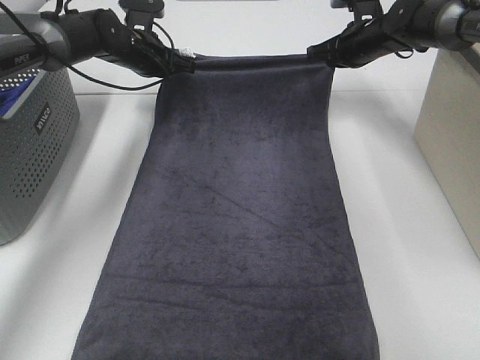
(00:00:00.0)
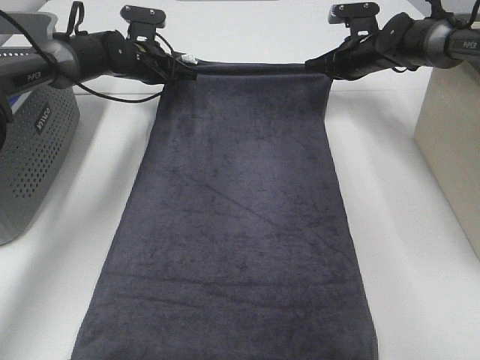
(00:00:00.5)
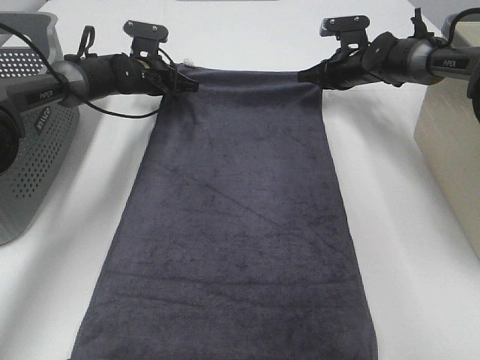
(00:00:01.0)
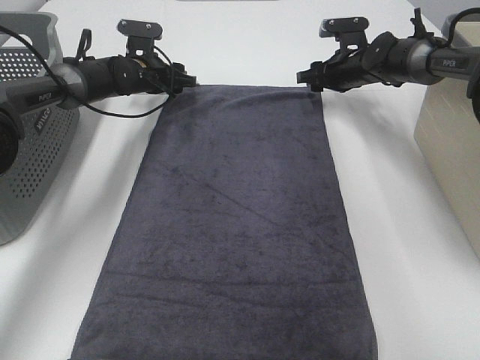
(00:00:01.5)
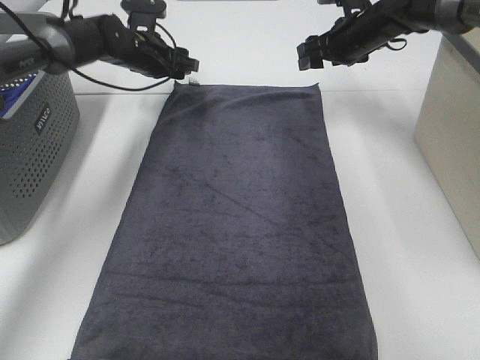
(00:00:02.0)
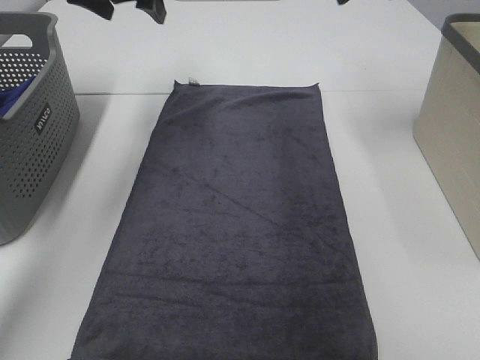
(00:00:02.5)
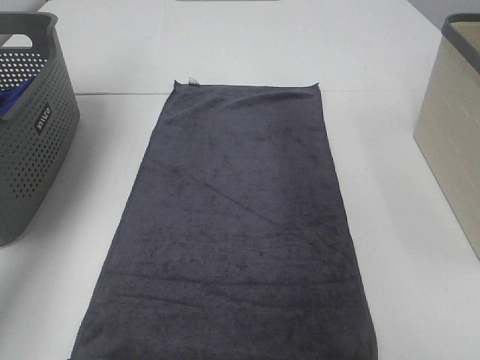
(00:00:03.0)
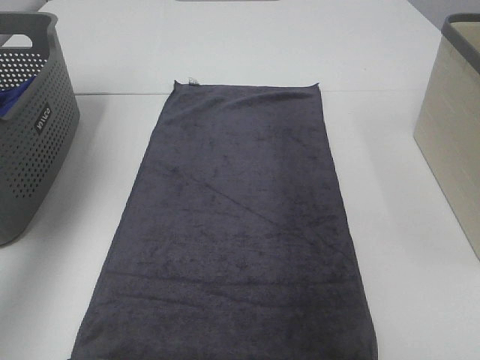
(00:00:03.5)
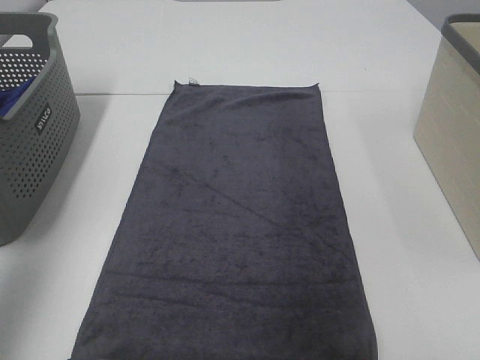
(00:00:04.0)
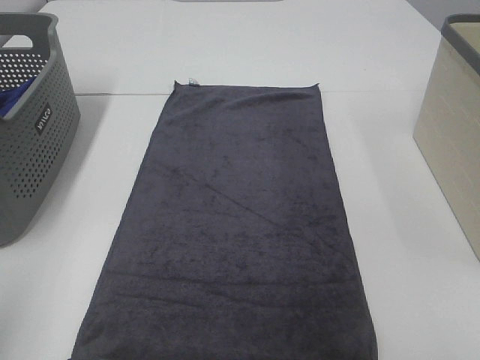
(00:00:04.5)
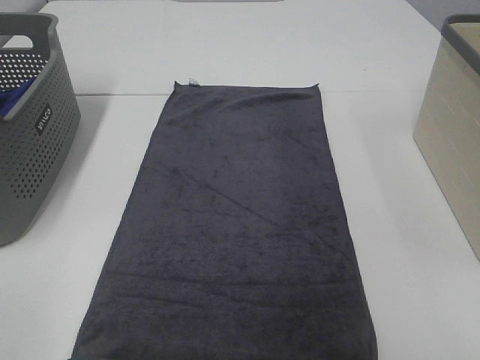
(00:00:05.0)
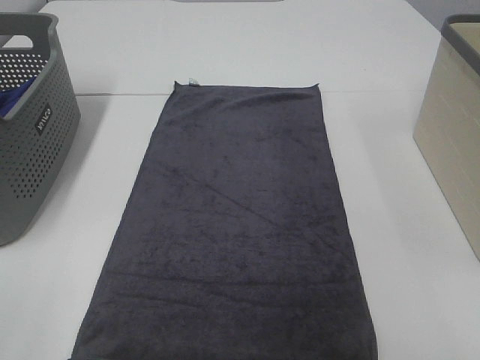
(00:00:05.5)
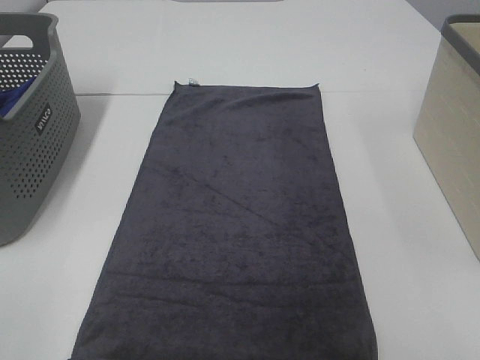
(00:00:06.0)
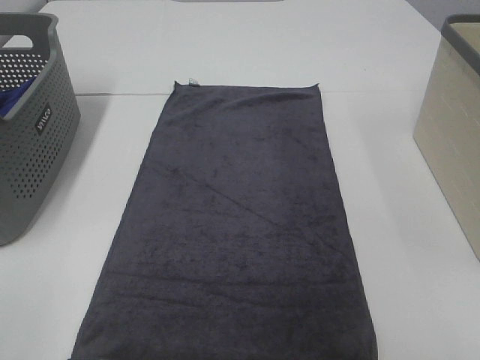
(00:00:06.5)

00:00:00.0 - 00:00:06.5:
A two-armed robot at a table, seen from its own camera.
Task of the whole recording: Remove the towel and place it.
00:00:00.0 - 00:00:02.0: The left gripper opens its fingers. The right gripper travels downward and back again, some 5 cm each way, and opens.
00:00:02.0 - 00:00:04.5: Both grippers travel together backward, roughly 50 cm.

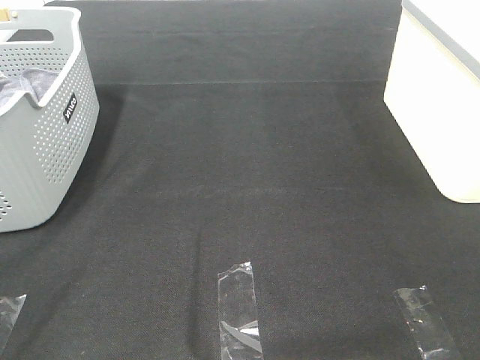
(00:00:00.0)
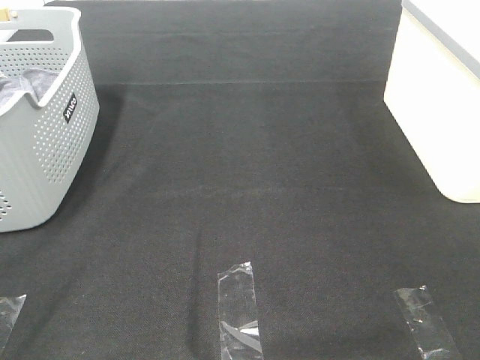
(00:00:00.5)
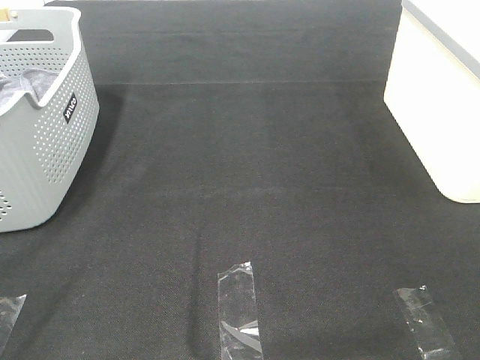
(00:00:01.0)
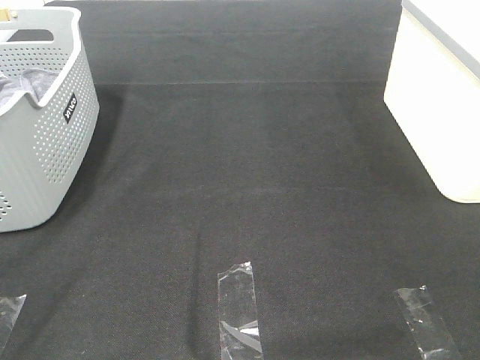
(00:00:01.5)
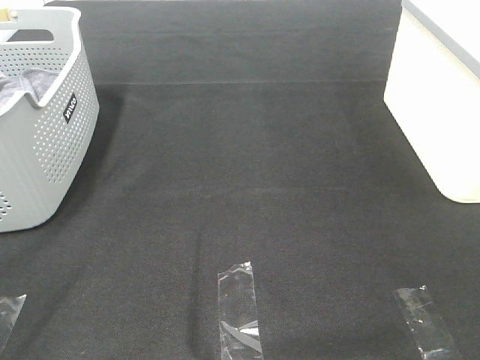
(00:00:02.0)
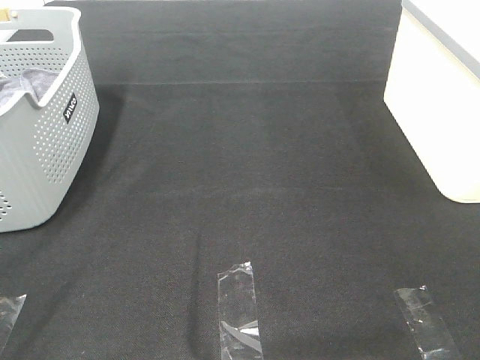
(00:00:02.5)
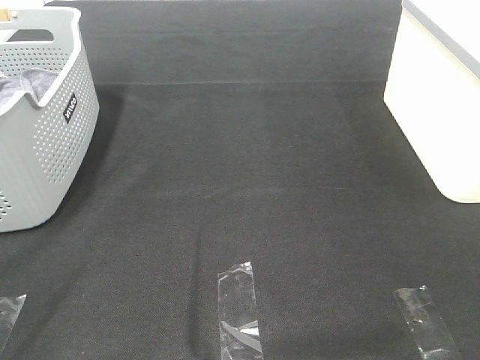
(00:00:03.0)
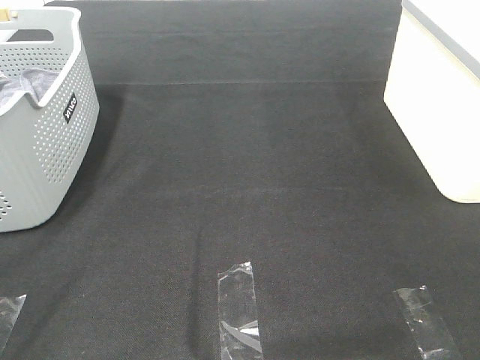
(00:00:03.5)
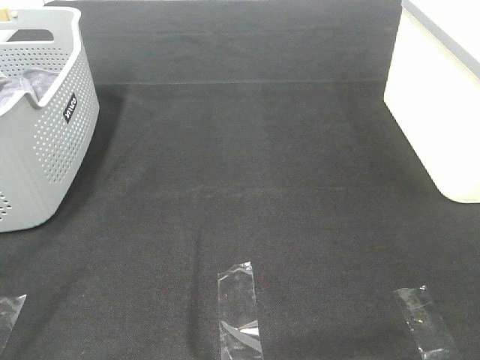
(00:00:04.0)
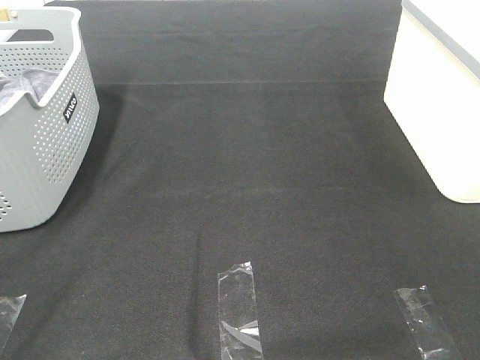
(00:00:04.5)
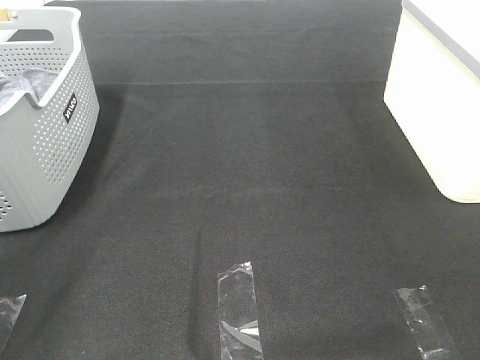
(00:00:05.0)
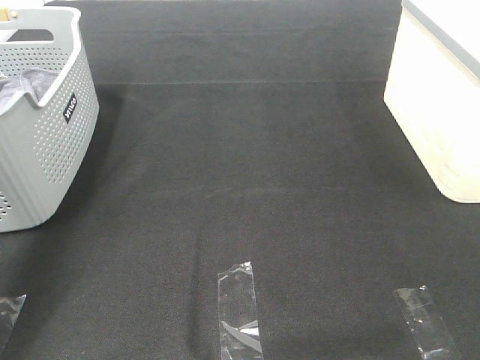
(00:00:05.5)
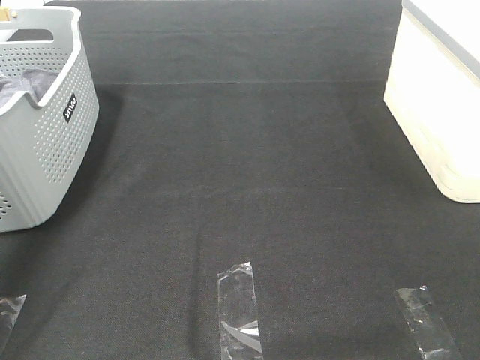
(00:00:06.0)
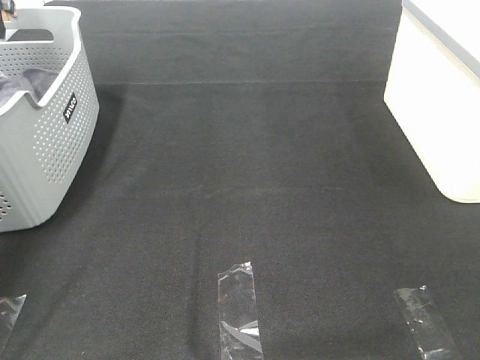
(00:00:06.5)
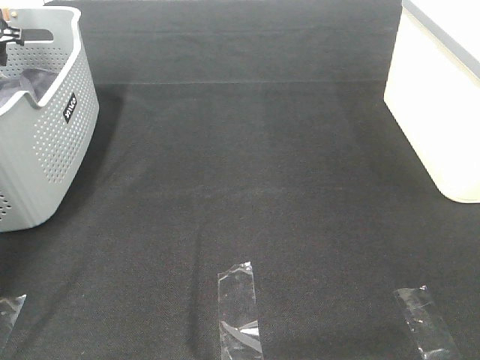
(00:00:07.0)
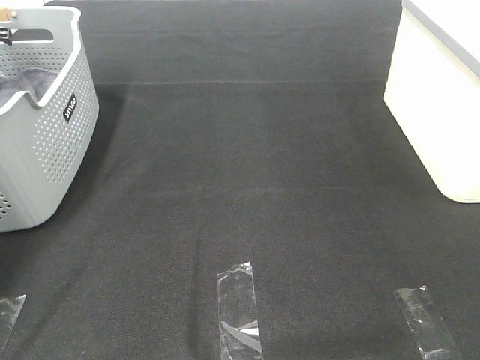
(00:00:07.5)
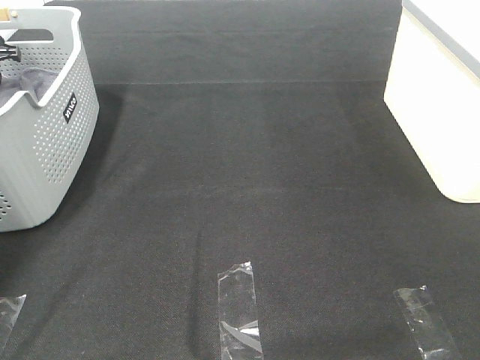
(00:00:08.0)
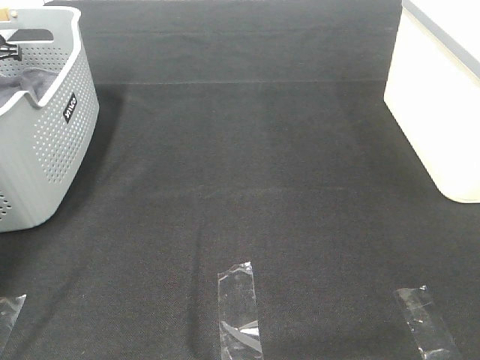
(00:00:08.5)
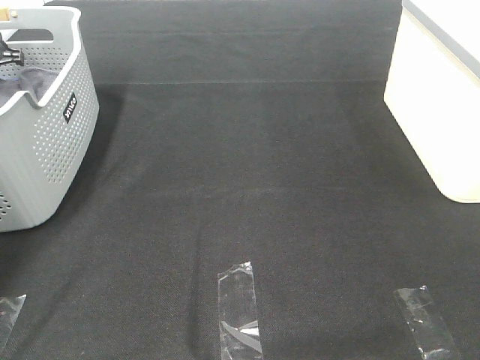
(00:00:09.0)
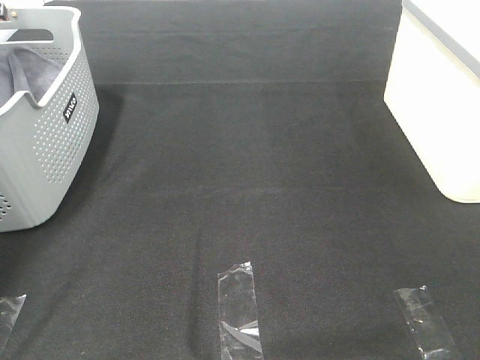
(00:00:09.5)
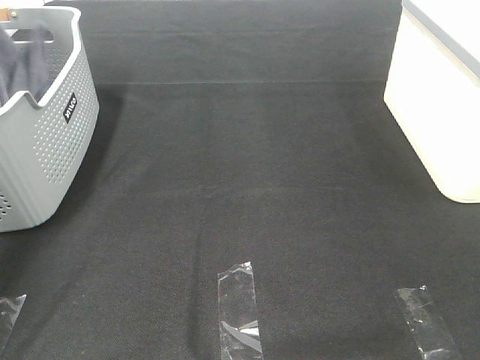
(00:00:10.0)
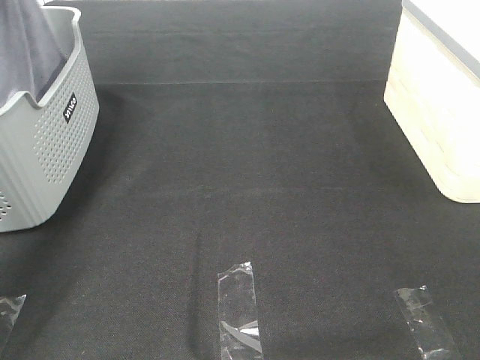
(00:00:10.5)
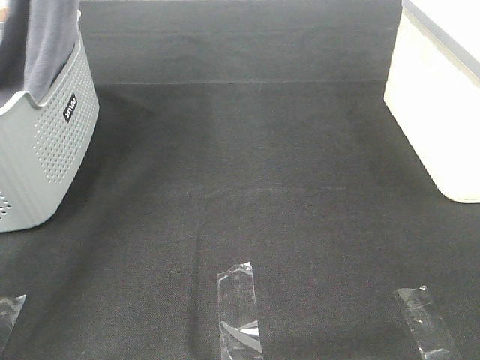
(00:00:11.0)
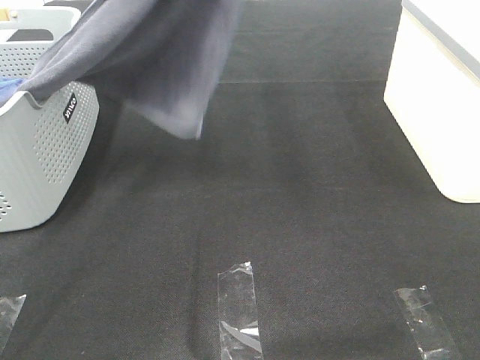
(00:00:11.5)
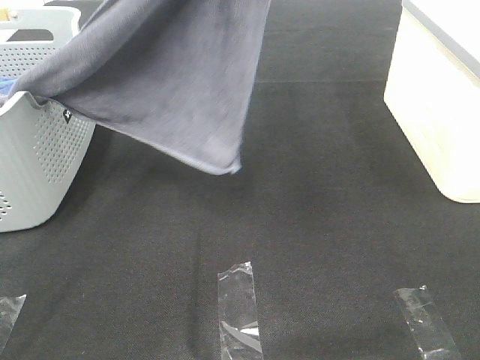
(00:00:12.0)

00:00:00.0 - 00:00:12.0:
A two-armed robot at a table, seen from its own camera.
Task of the whole recording: Remove the towel and place it.
00:00:00.0 - 00:00:04.0: The two grippers keep their place.
00:00:04.0 - 00:00:06.0: The left gripper moves forward, about 40 cm.
00:00:06.0 - 00:00:08.0: The left gripper is displaced downward, forward and to the left by some 20 cm.
00:00:08.0 - 00:00:10.0: The left gripper shifts about 15 cm upward, and closes.
00:00:10.0 - 00:00:12.0: The left gripper is displaced to the right, backward and upward by some 40 cm.

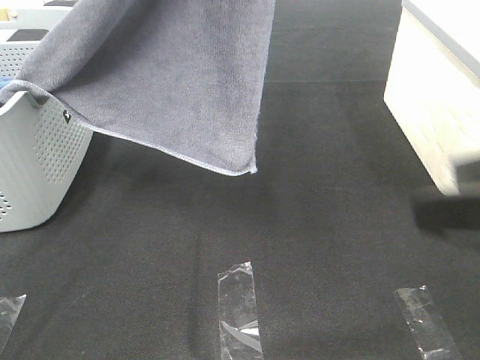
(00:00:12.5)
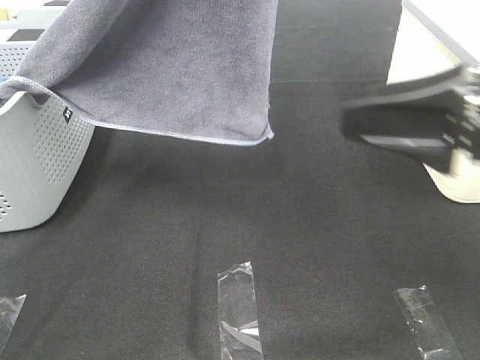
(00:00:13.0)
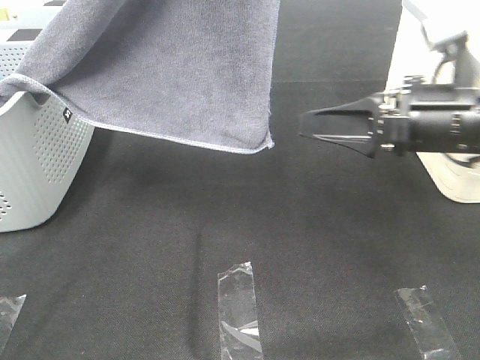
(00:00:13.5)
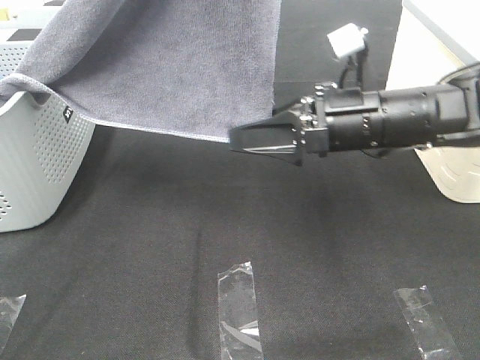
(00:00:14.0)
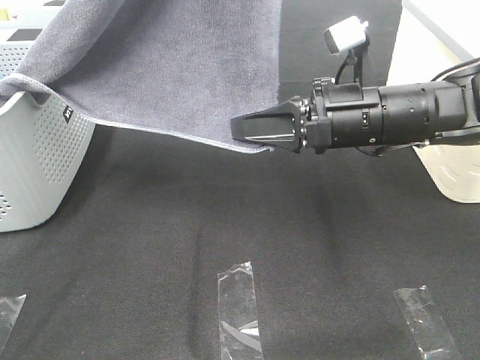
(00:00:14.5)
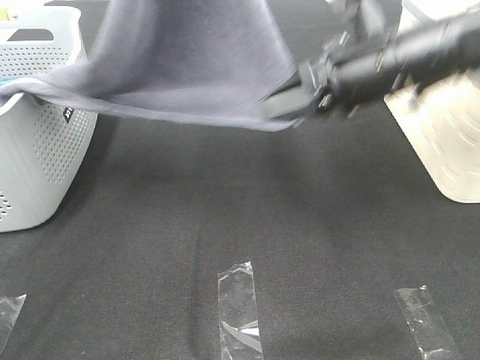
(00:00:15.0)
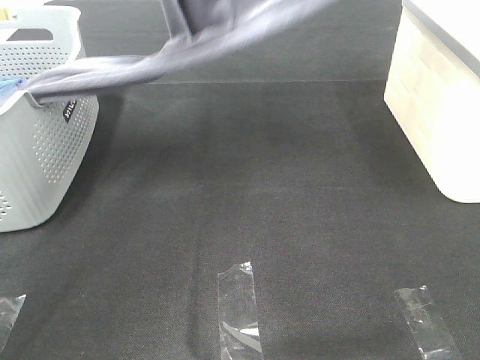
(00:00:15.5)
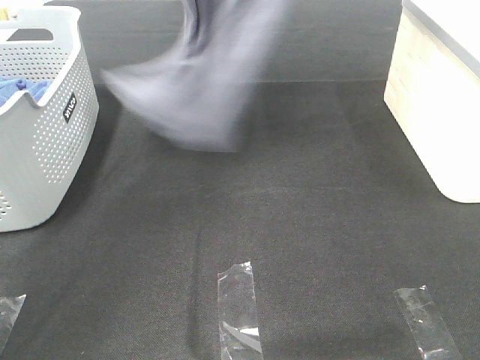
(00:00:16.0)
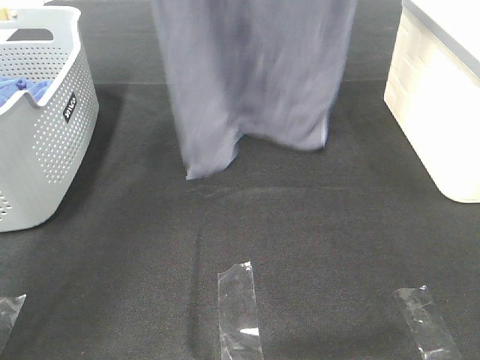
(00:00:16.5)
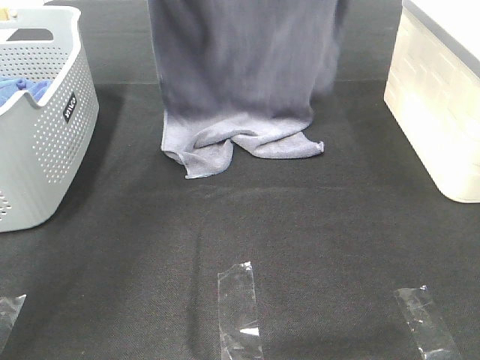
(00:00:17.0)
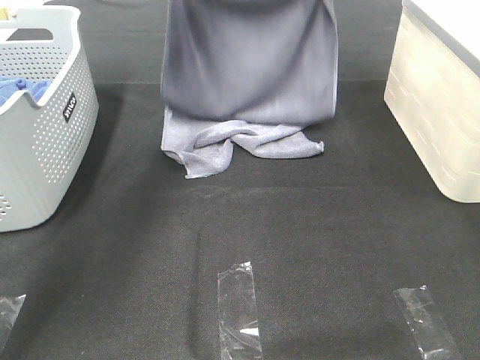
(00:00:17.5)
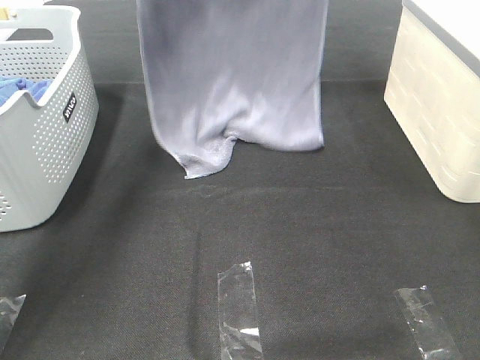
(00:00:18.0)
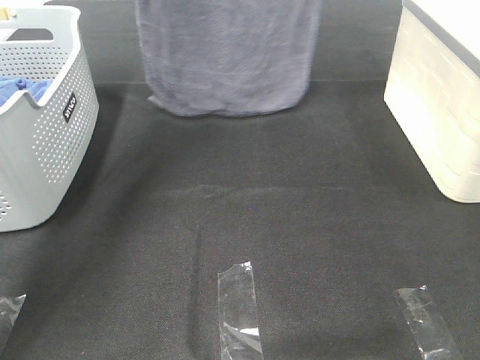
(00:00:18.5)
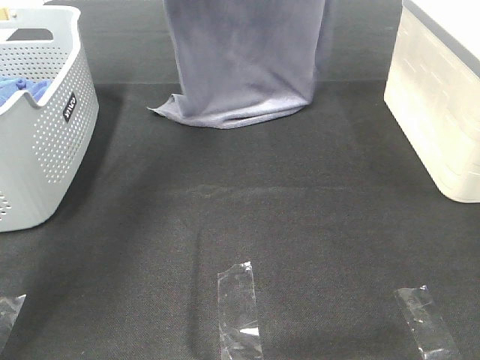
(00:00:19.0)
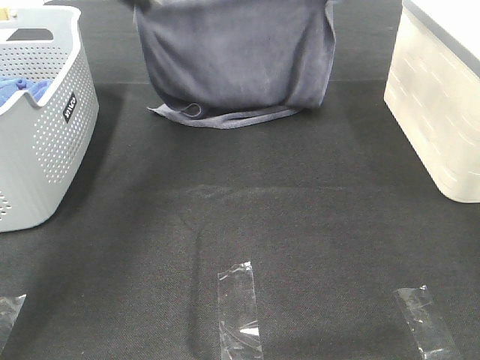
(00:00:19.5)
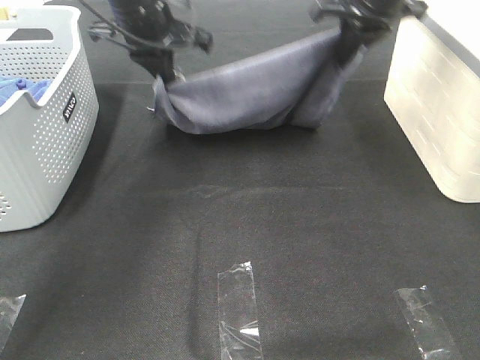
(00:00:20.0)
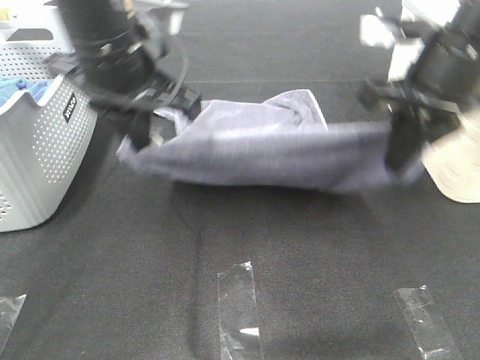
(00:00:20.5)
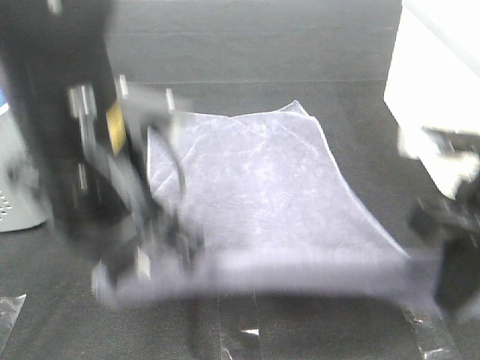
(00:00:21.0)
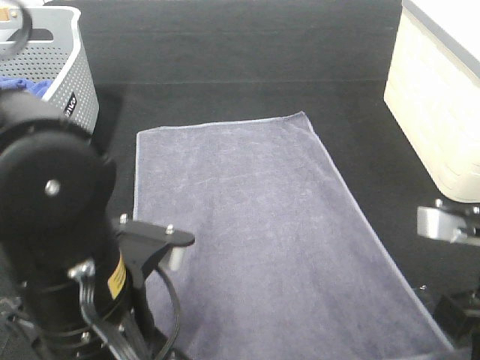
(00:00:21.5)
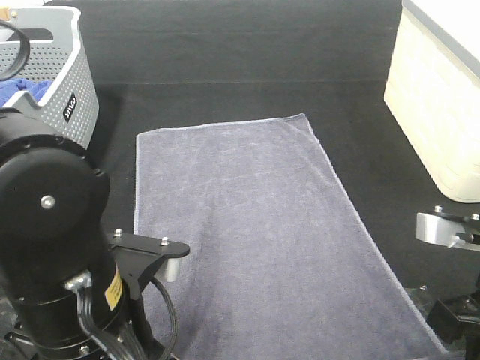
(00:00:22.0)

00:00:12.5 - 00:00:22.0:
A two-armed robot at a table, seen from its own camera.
Task of the whole recording: Remove the towel and place it.
Step, 00:00:13.5 - 00:00:18.0: Left hand: spread the grey towel flat on the table.
Step, 00:00:13.5 - 00:00:18.0: Right hand: spread the grey towel flat on the table.
00:00:12.5 - 00:00:14.5: The right gripper goes some 25 cm forward, downward and to the left, and closes.
00:00:14.5 - 00:00:16.5: The right gripper travels upward by some 30 cm; the left gripper shifts some 20 cm forward and to the left.
00:00:16.5 - 00:00:18.0: The two grippers go some 10 cm forward and downward.
00:00:18.0 - 00:00:20.0: The two grippers go about 15 cm downward and backward.
00:00:20.0 - 00:00:22.0: Both grippers move backward, about 30 cm.
